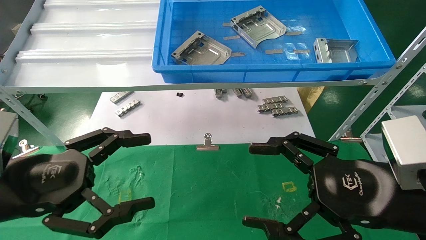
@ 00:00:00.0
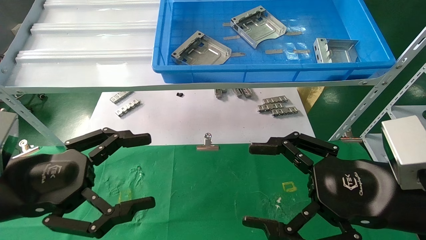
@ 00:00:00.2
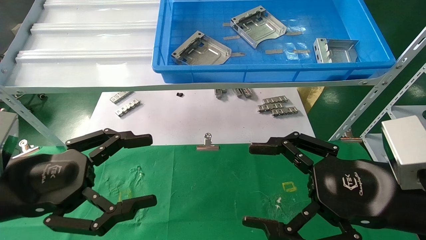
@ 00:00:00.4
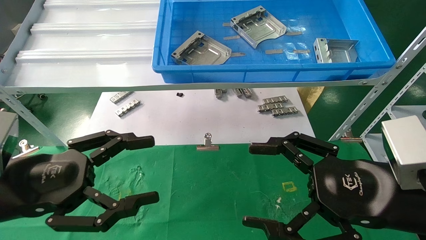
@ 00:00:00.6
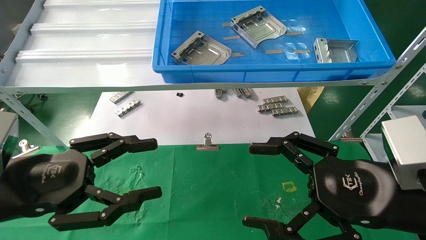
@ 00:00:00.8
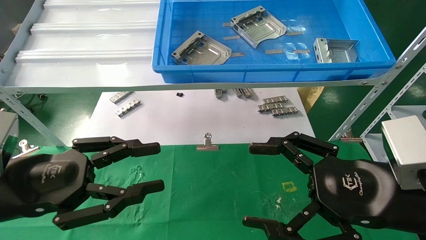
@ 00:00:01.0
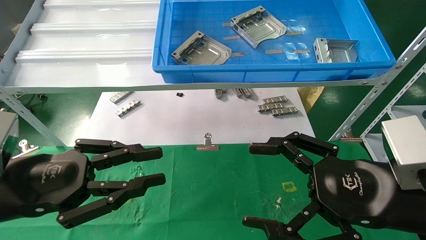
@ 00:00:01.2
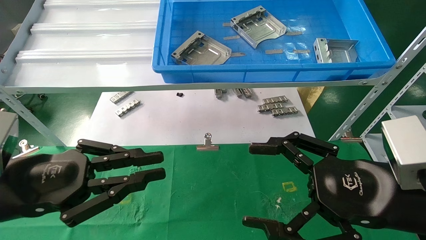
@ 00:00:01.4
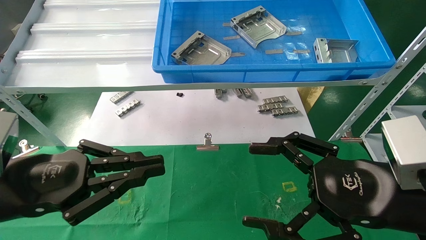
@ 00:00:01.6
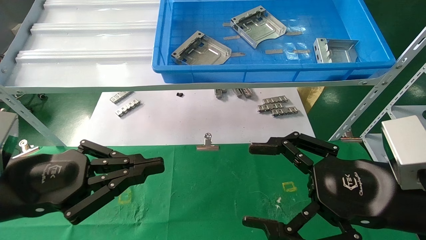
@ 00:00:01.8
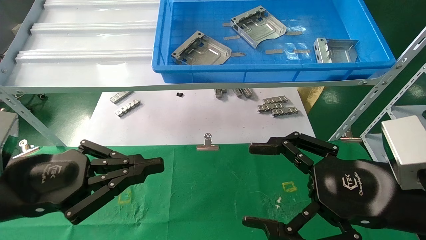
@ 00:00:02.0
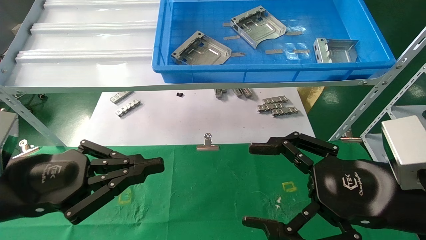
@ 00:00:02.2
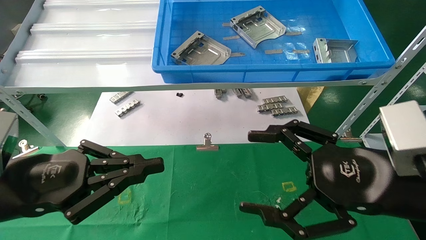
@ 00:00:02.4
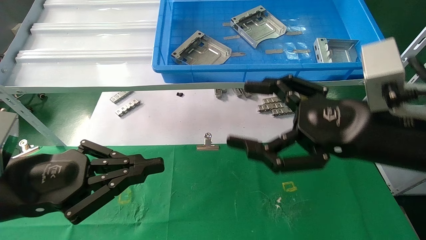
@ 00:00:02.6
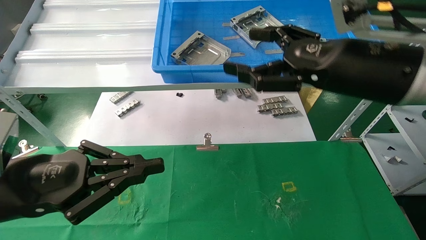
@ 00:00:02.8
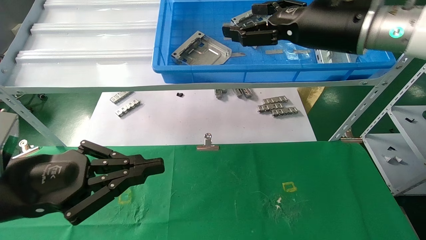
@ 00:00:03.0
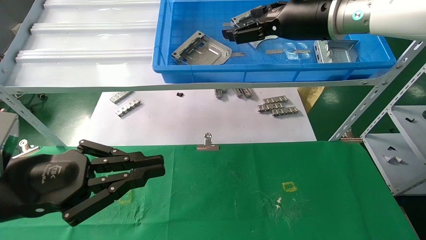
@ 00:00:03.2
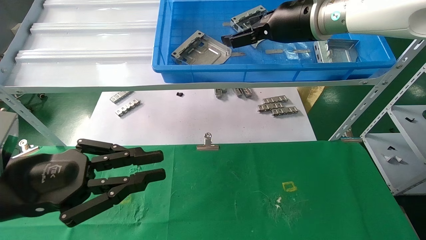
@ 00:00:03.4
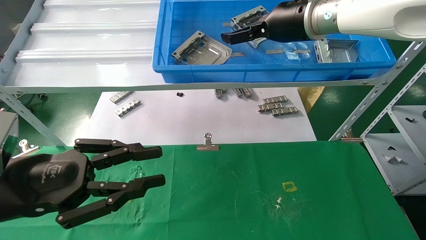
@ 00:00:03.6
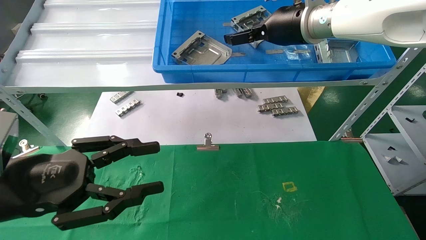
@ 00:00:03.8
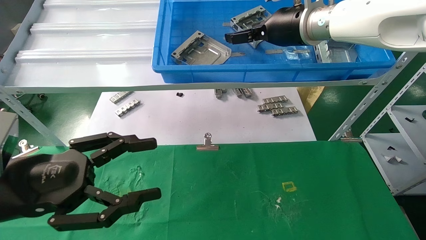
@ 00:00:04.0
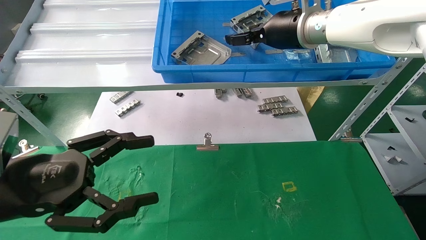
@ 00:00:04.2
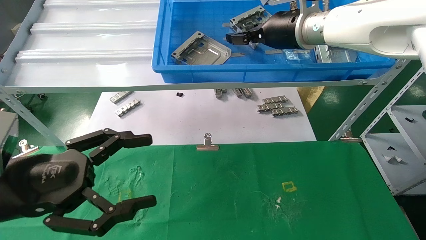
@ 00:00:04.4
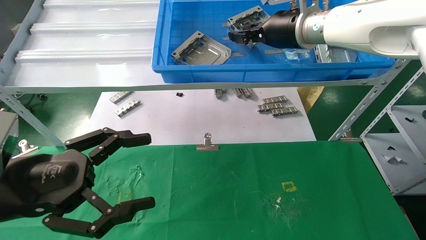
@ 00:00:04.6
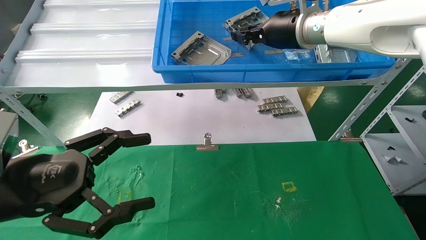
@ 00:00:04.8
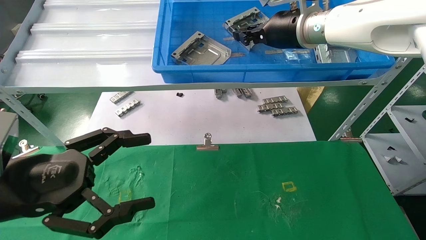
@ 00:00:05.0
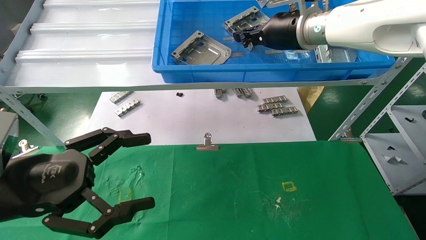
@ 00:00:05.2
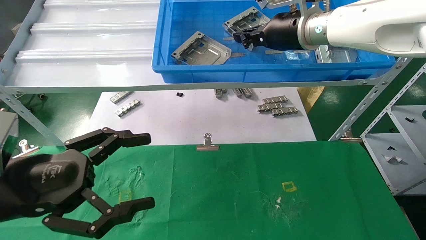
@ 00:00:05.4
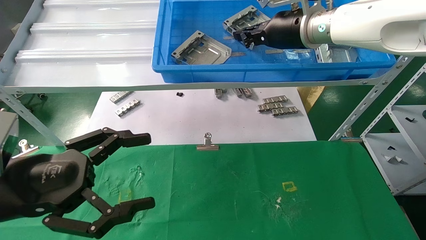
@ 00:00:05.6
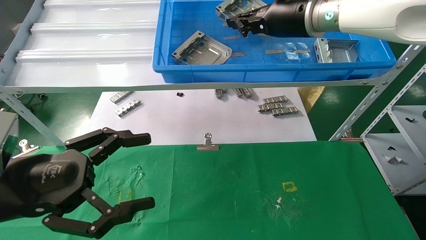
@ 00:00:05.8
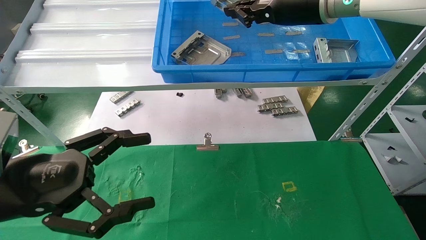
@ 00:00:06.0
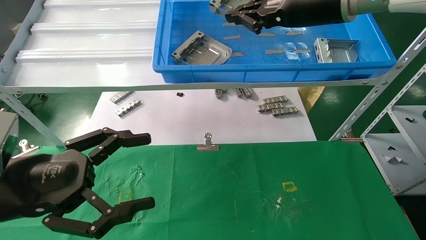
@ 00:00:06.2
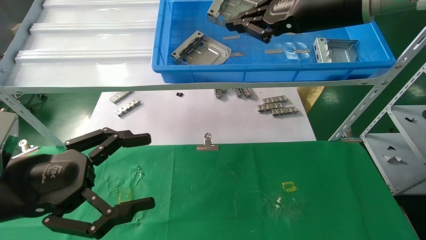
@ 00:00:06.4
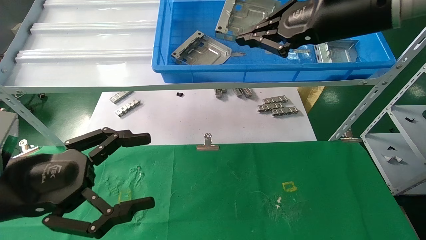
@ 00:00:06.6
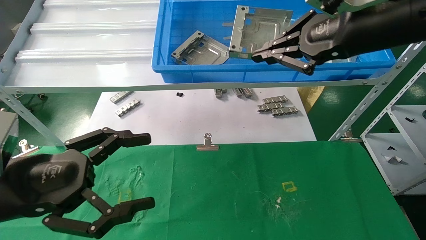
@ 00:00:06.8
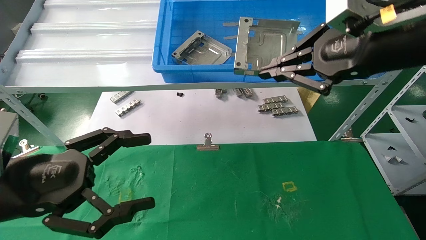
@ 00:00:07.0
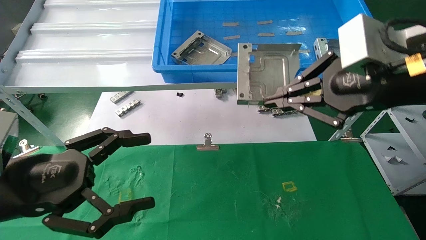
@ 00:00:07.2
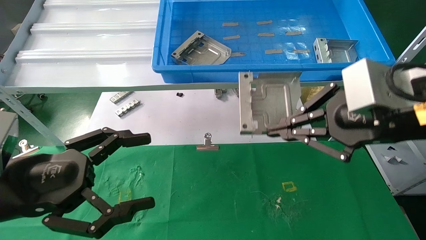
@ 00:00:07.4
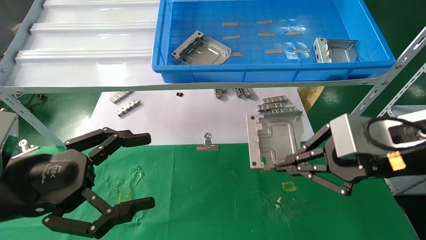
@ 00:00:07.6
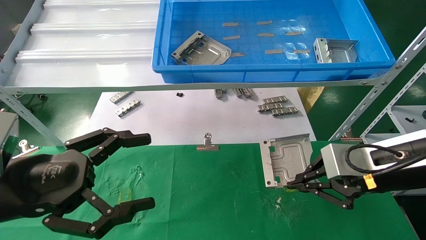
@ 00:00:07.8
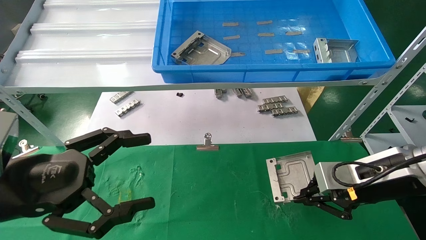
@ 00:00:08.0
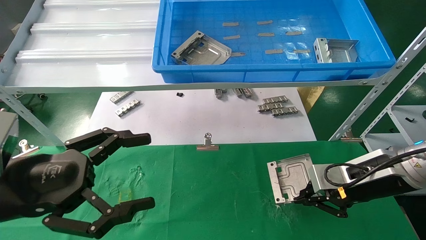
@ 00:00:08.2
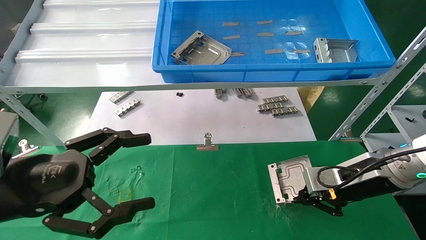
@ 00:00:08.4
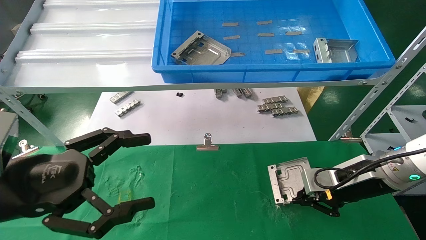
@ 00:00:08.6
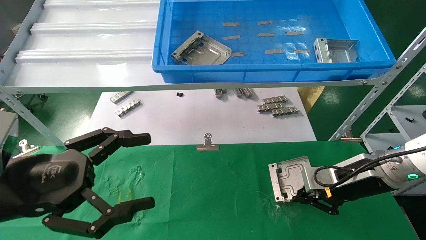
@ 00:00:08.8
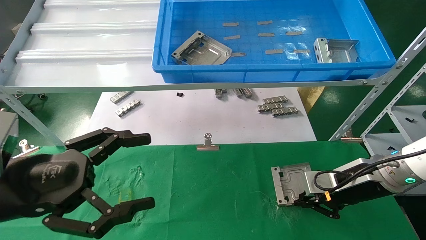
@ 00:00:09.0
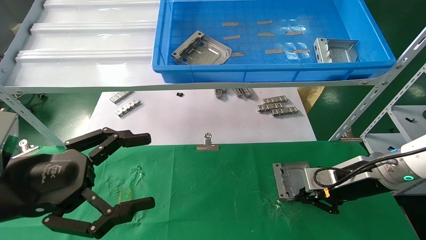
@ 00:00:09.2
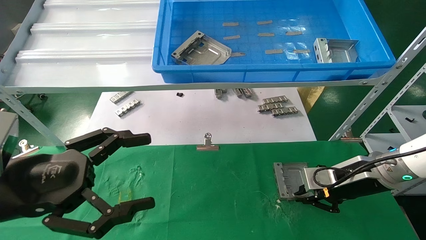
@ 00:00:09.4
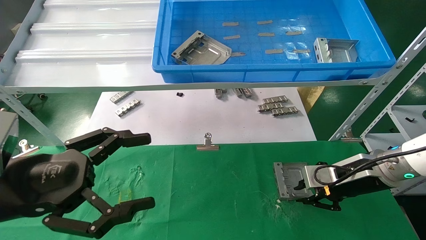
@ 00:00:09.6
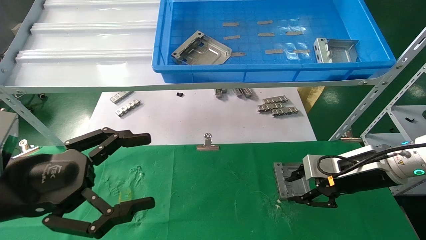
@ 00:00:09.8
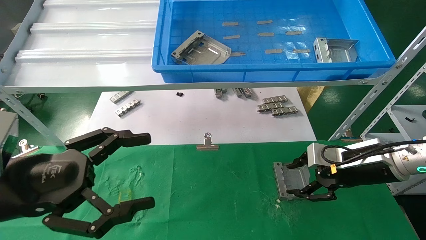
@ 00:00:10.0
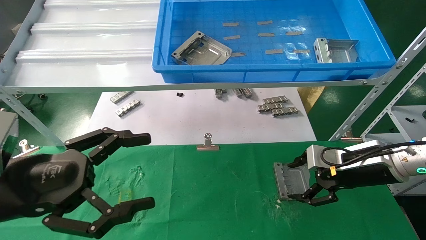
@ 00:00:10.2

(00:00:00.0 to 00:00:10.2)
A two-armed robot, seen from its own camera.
Task of the whole recording: use the mechanical arm to pick up the parts and place them on the table.
Step, 00:00:02.6 - 00:00:05.2: Pick up the hard drive bracket from the feeding area.
Step, 00:00:05.4 - 00:00:09.4: Place the hard drive bracket into the box.
00:00:00.0 - 00:00:01.4: The left gripper closes its fingers.
00:00:01.4 - 00:00:03.0: The right gripper travels upward and forward by about 25 cm.
00:00:03.0 - 00:00:04.4: The left gripper opens its fingers. Meanwhile the right gripper moves forward, about 10 cm.
00:00:04.4 - 00:00:05.8: The right gripper closes up.
00:00:05.8 - 00:00:07.2: The right gripper shifts about 20 cm backward and to the right.
00:00:07.2 - 00:00:08.8: The right gripper moves downward and forward, approximately 25 cm.
00:00:08.8 - 00:00:10.2: The right gripper opens up.

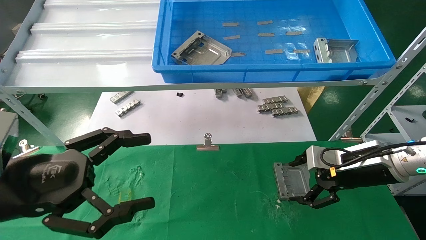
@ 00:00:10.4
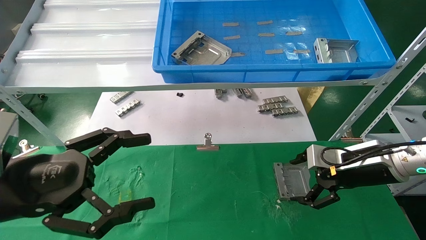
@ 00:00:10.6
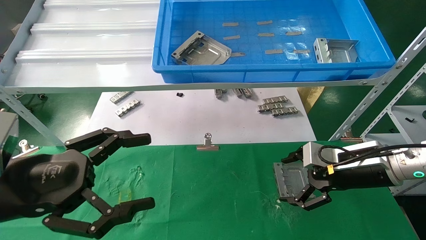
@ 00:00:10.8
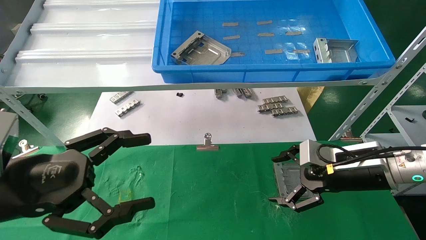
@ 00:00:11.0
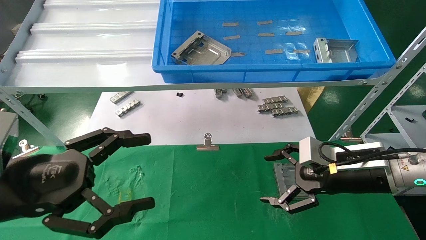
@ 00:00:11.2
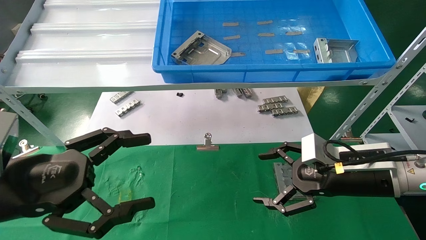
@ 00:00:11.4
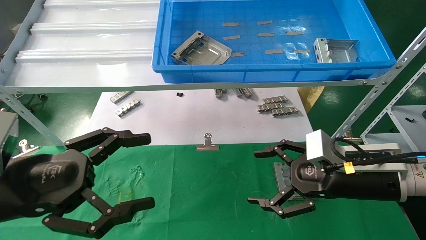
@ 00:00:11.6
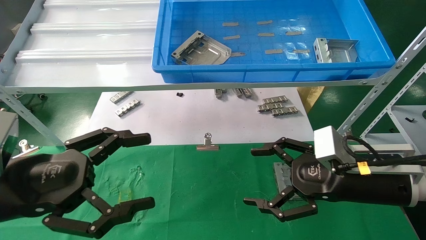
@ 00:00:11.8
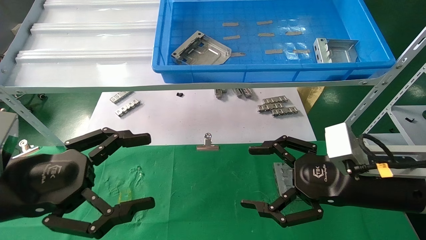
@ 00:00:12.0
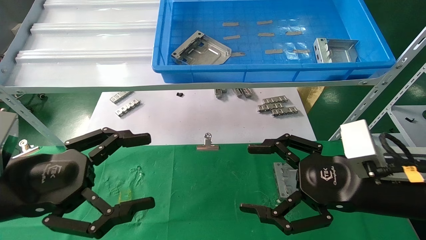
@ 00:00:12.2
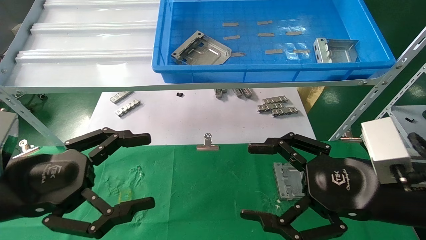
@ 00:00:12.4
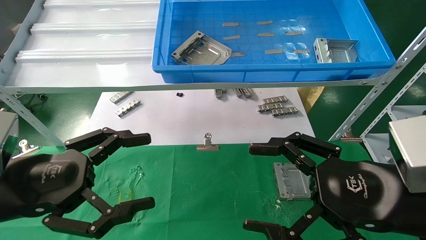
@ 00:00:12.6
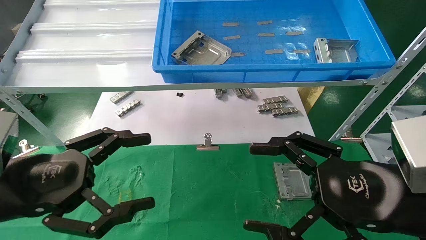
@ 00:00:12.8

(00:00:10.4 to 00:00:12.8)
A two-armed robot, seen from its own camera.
Task of the whole recording: use the mechanical arm to pick up the parts and place them on the table.
00:00:10.4 - 00:00:11.6: The right gripper is displaced backward and to the left by roughly 10 cm.
00:00:11.6 - 00:00:12.8: The right gripper moves backward, some 10 cm.
